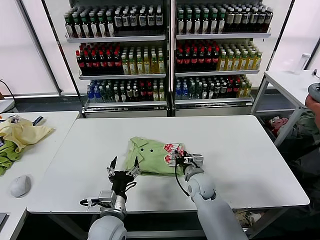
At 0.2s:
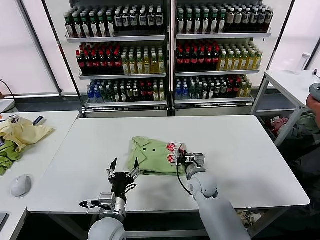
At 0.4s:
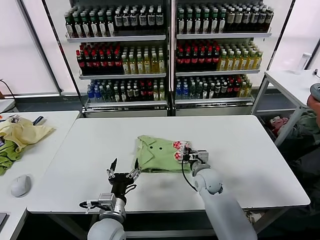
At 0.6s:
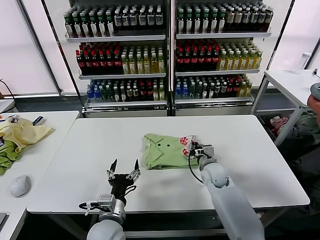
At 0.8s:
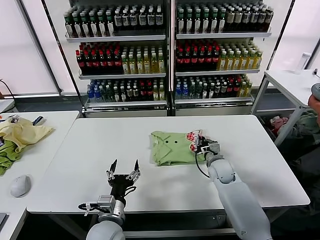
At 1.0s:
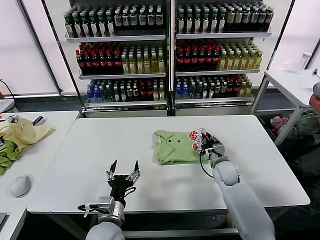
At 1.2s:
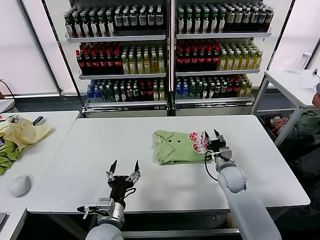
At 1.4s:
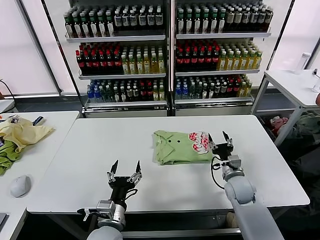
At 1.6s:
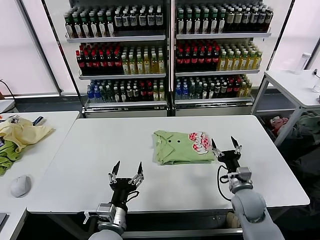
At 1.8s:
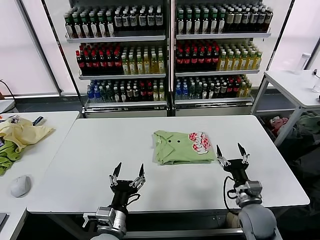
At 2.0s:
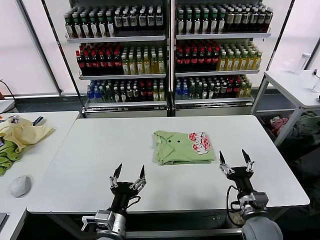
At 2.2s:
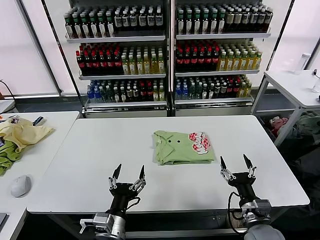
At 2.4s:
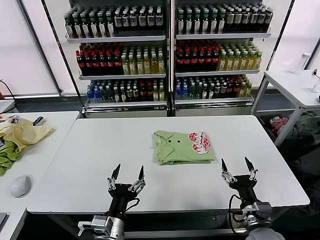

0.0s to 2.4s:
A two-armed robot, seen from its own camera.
Task of the whole recording: fold and organize the clothes.
0.0s to 1.2s: The right gripper is displaced to the right by roughly 10 cm, and closes, then reopens.
1.2s to 2.4s: The left gripper is displaced backward by roughly 5 cm; the right gripper is displaced backward by some 25 cm, and opens.

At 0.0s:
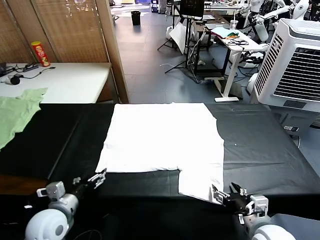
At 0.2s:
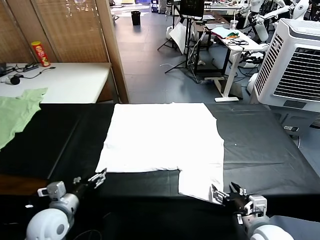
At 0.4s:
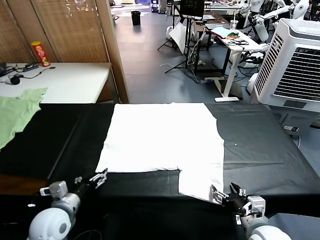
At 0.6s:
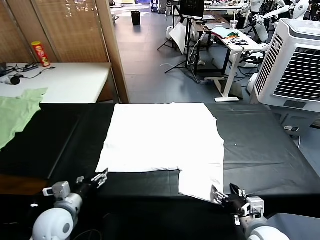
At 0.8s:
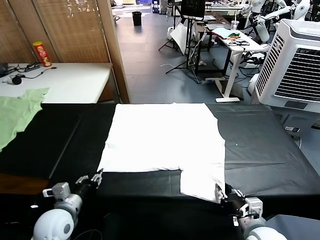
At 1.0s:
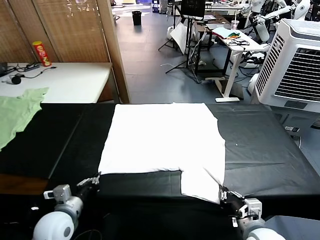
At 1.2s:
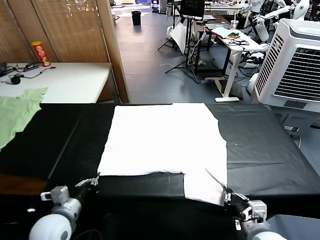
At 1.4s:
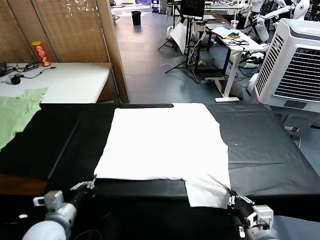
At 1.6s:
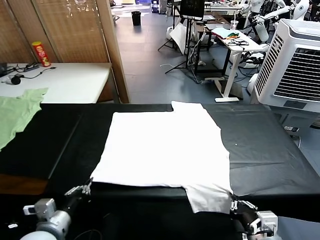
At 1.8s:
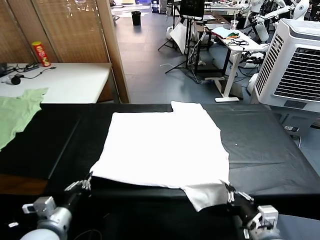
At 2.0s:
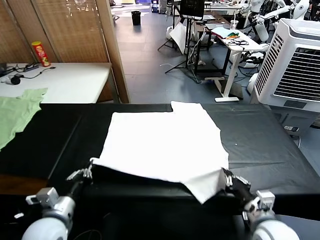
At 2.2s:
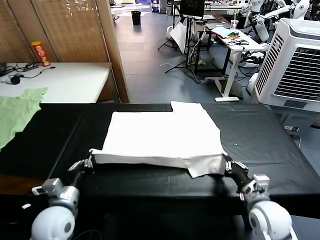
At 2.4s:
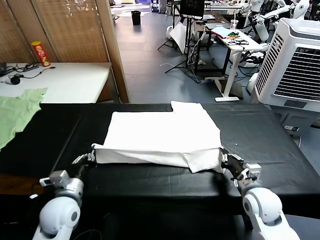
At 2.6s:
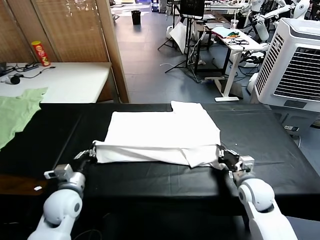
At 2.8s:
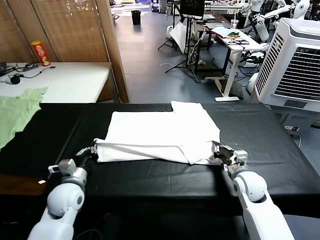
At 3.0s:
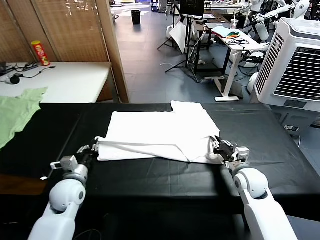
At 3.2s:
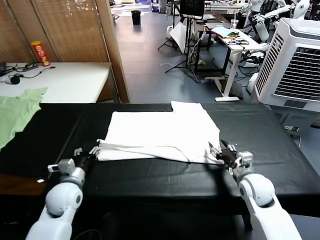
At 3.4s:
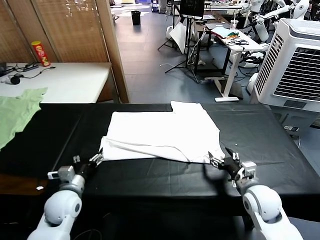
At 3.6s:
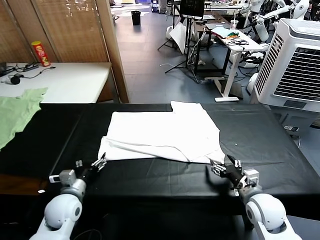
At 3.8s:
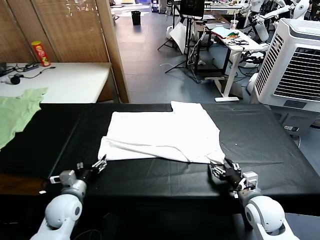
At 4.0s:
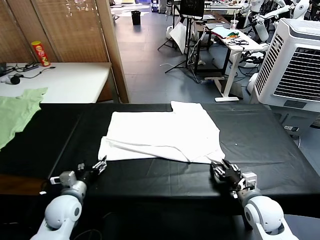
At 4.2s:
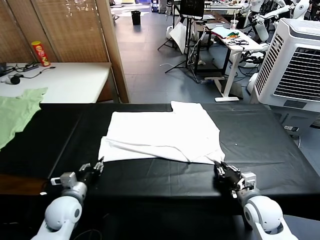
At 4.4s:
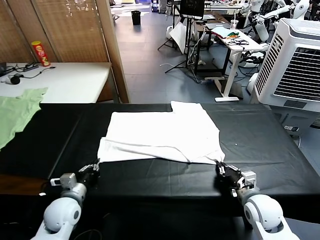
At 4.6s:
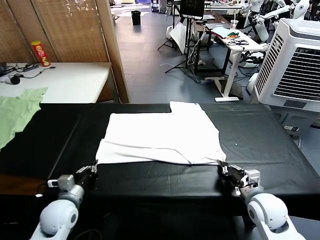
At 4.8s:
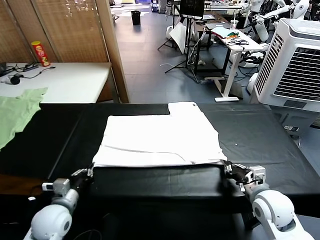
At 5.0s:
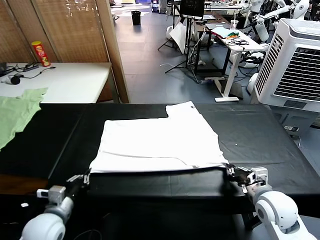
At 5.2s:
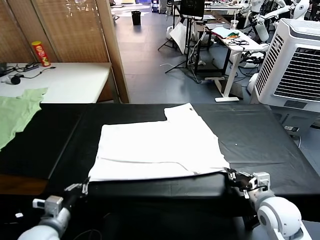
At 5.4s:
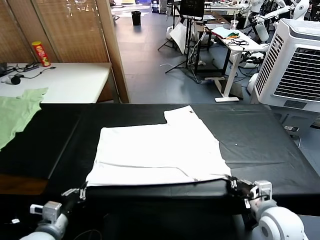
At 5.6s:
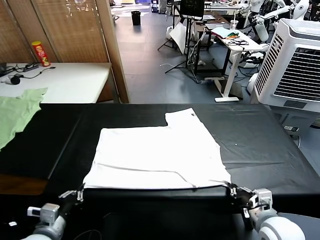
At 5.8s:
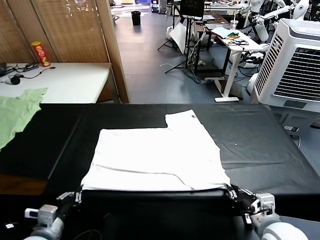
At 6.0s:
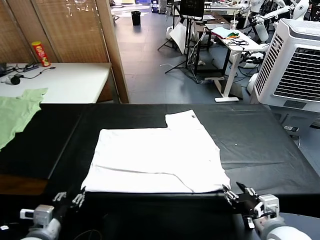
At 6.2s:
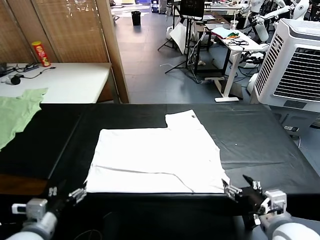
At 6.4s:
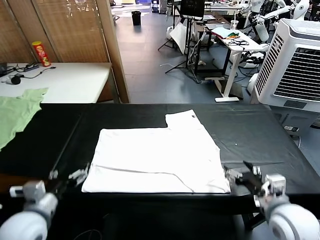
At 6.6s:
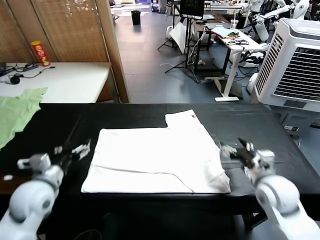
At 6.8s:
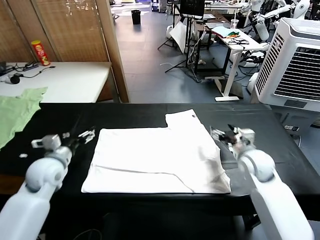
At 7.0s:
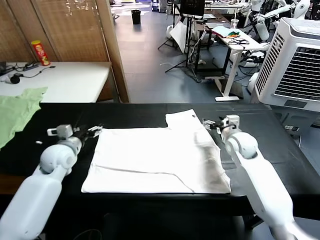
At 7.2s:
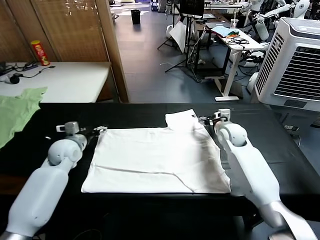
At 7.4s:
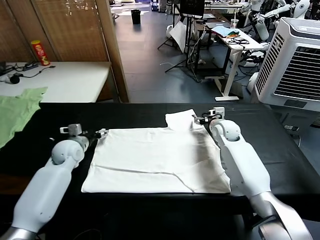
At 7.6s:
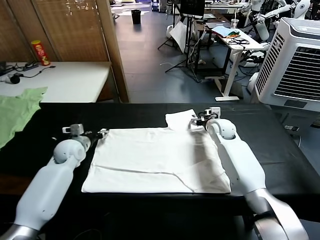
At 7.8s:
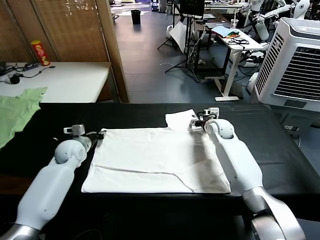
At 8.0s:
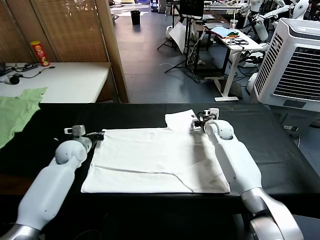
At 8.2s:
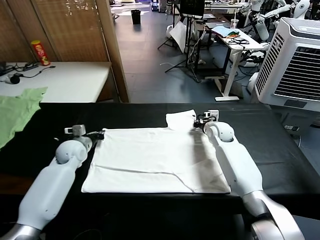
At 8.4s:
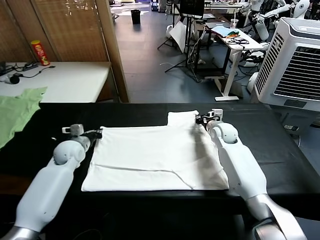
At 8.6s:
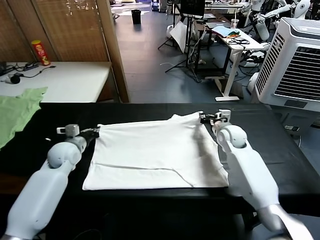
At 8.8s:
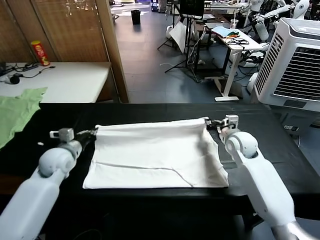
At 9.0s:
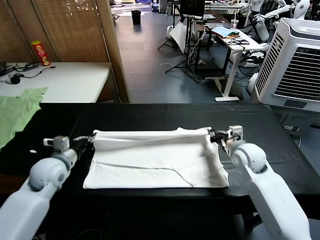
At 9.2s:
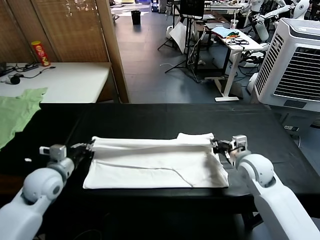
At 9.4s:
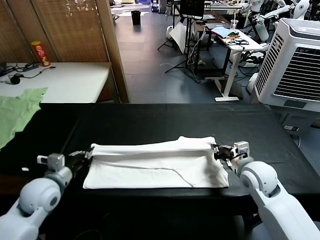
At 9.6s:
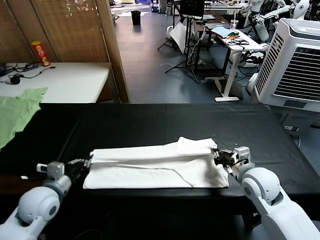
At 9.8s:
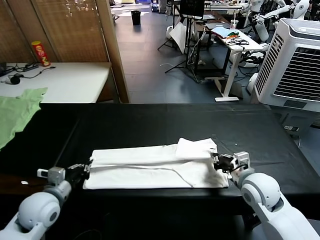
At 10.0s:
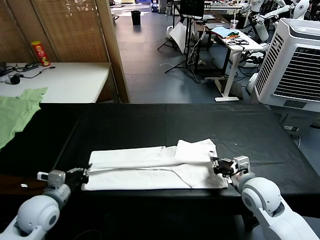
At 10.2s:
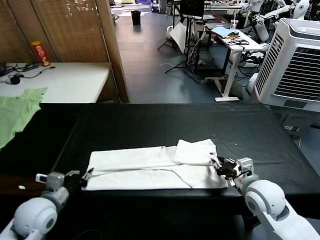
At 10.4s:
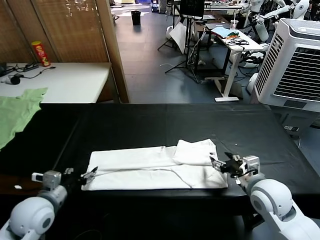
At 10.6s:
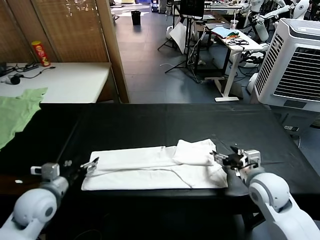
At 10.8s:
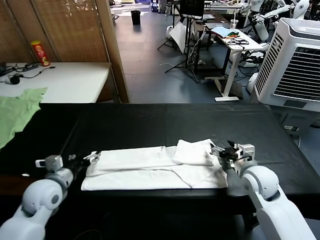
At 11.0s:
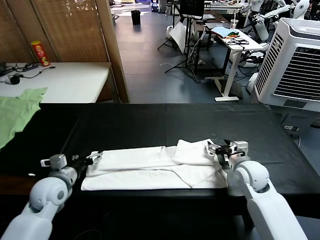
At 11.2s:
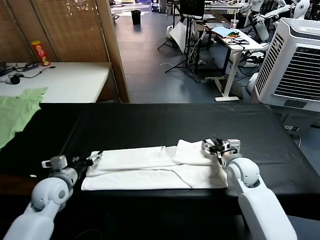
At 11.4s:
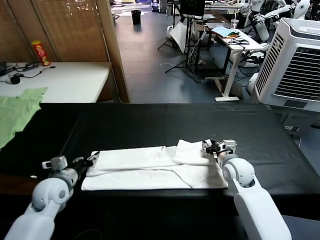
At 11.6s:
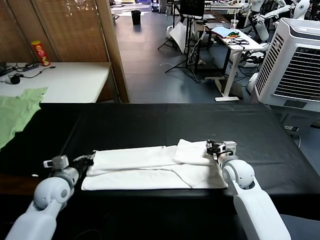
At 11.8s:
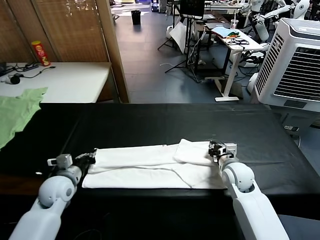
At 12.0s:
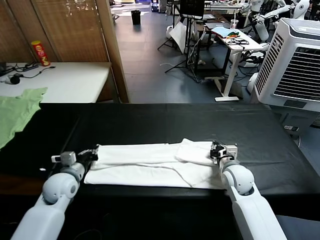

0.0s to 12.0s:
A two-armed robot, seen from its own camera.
Task of the whole recording: fold and organize the clothes.
Step, 0.0s to 1.2s: use both grippers simultaneously to clamp the lower edge of the clothing fabric.
Step, 1.4s to 3.2s: use both grippers to drag the lower edge of the fabric forward and fold it over the upper edge.
Step, 3.4s to 6.0s: Drag the clothes downward with both gripper.
Step, 6.2s to 8.0s: use both grippers simultaneously to clamp the upper edge of the clothing fabric.
Step, 8.4s to 10.2s: use both grippers to drag the upper edge of the fabric backward and fold it over the lower edge.
1.6s to 3.0s: Both grippers travel together forward, some 15 cm. The right gripper opens up; the left gripper opens.
3.0s to 4.4s: The left gripper moves some 5 cm, and closes its fingers. Meanwhile the right gripper moves backward, approximately 5 cm, and closes.
4.4s to 6.0s: The grippers both shift backward and upward by about 15 cm. The left gripper opens, while the right gripper opens up.
6.0s to 7.6s: The two grippers go roughly 35 cm forward.
7.6s to 9.0s: The left gripper moves backward, approximately 10 cm, and closes up. The right gripper moves backward, about 20 cm, and closes.
9.0s to 10.4s: Both grippers move backward, roughly 10 cm. The left gripper opens. The right gripper opens.
10.4s to 12.0s: The left gripper heads forward and downward, covering about 10 cm, and closes up. The right gripper moves downward and forward, about 10 cm, and closes up.

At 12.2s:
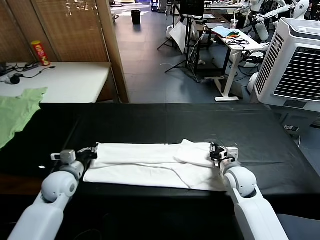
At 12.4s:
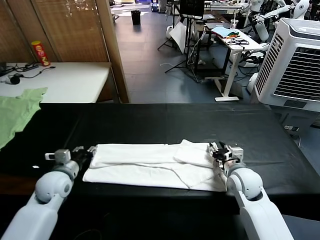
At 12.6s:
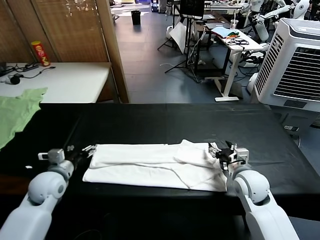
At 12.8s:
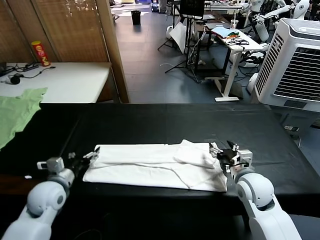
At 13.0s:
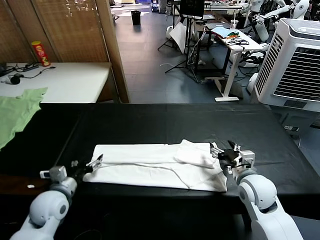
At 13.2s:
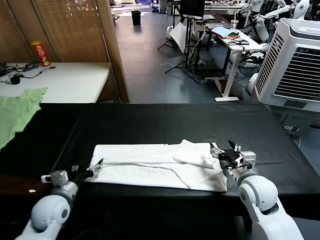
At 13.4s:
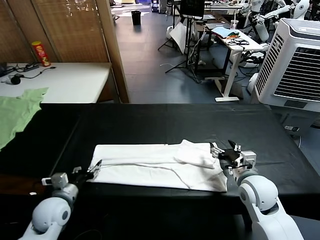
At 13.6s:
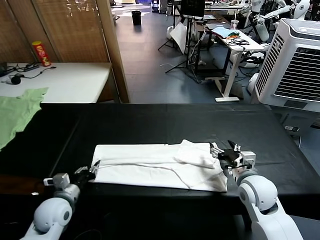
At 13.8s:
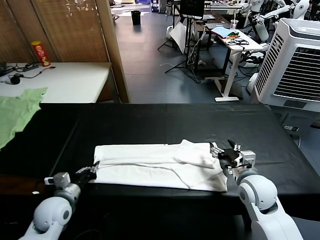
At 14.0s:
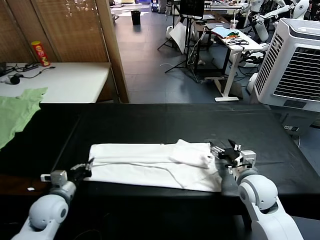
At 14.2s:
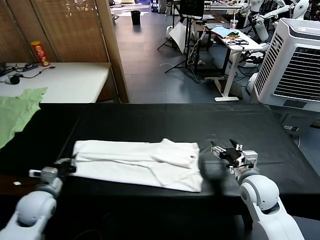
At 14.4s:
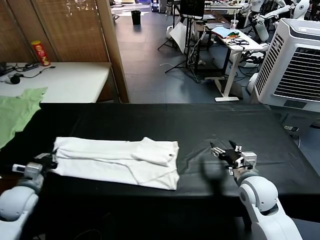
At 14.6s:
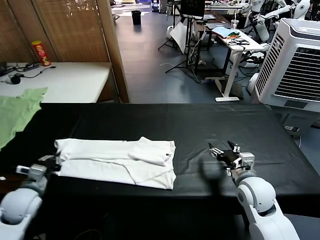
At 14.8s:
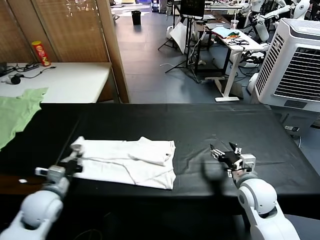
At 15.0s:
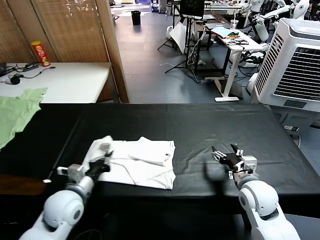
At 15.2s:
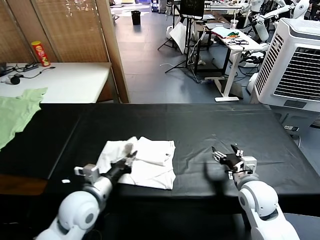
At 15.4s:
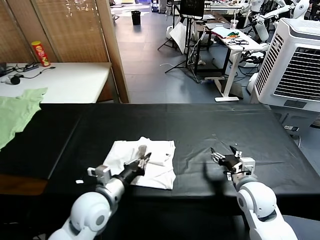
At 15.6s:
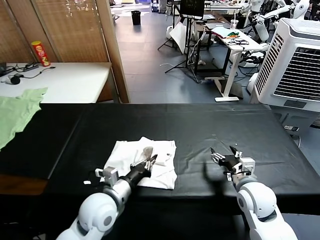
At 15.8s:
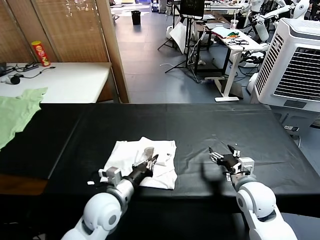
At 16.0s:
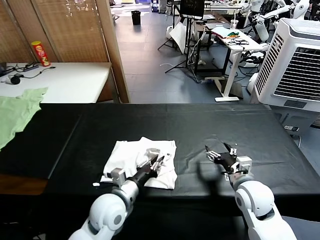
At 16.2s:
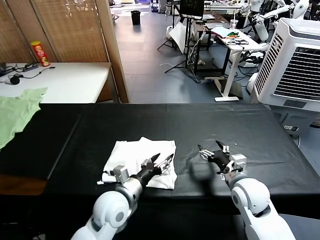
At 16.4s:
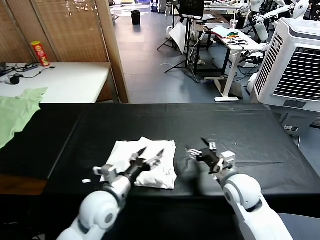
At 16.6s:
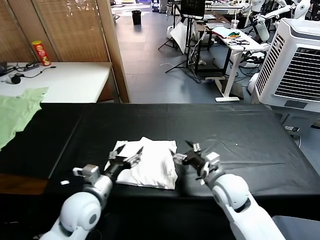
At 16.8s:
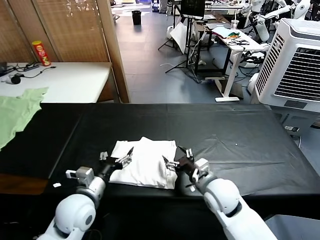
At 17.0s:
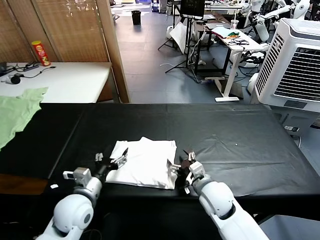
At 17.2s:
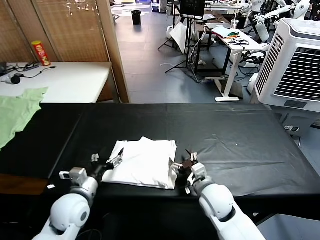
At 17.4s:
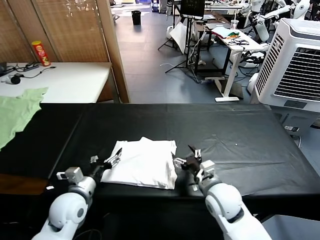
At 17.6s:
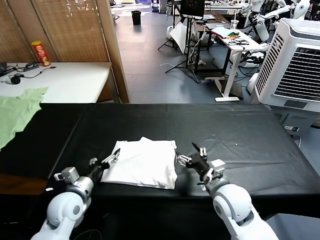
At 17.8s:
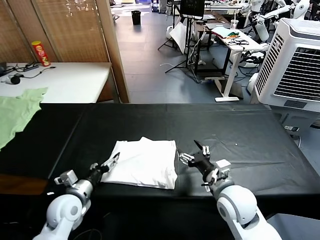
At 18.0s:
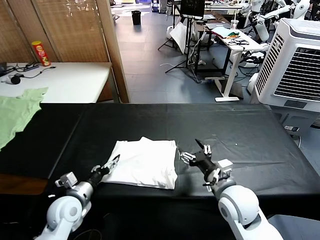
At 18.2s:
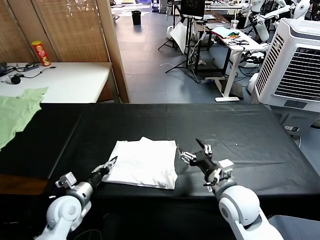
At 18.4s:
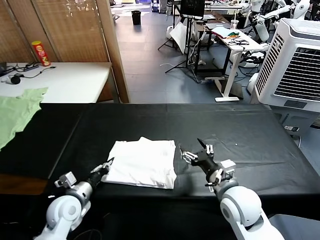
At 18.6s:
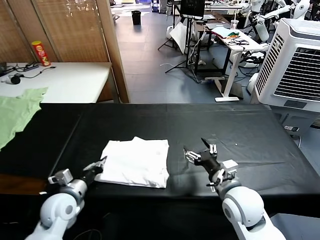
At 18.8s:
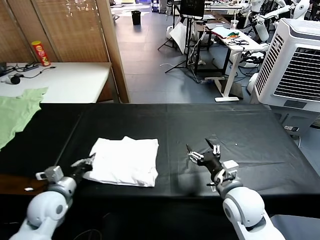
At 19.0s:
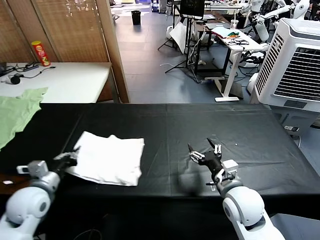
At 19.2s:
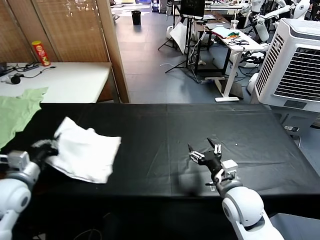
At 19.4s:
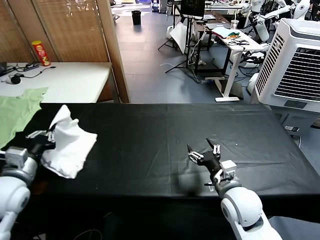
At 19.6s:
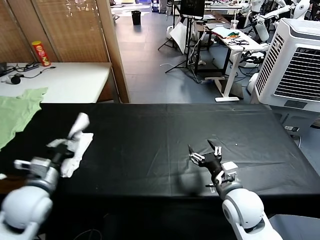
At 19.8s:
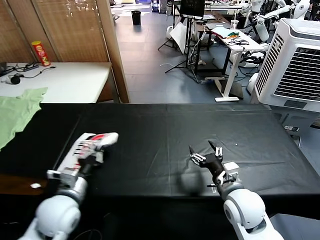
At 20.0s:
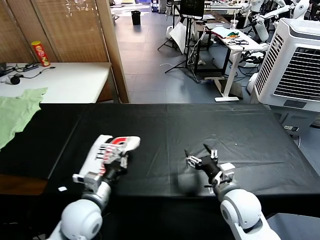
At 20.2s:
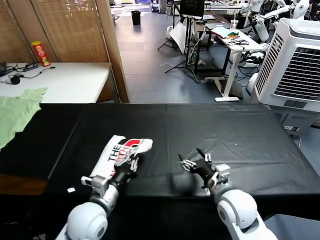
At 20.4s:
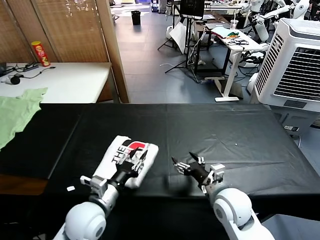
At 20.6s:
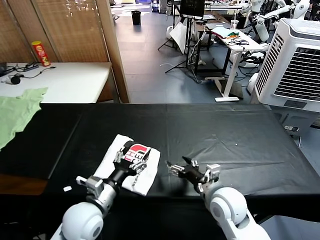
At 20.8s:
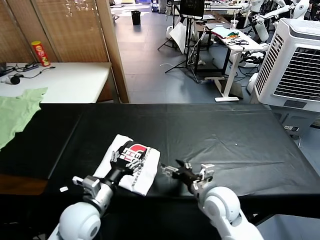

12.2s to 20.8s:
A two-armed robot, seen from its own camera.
Task of the whole recording: fold and organize the clothes.
Step, 14.0s to 16.0s: use the left gripper to drag the left edge of the fabric to the left and folds it over the right edge.
Step, 16.2s to 20.4s: Flip the folded clothes over with left gripper.
12.2s to 13.6s: The left gripper goes roughly 10 cm backward, and opens, then closes again. Meanwhile the right gripper moves backward, some 5 cm, and opens its fingers.
13.6s to 15.0s: The left gripper travels upward by roughly 5 cm, and reaches roughly 10 cm to the left, then returns.
15.0s to 16.6s: The left gripper travels to the right by about 5 cm, and opens its fingers. Meanwhile the right gripper shifts approximately 10 cm to the left.
16.6s to 18.0s: The left gripper moves to the left and downward, approximately 10 cm, while the right gripper changes place by approximately 5 cm.
18.0s to 19.4s: The left gripper is displaced upward and to the left by roughly 20 cm, and closes its fingers.
19.4s to 20.8s: The right gripper moves roughly 5 cm, while the left gripper goes some 20 cm to the right and downward, and opens up.
